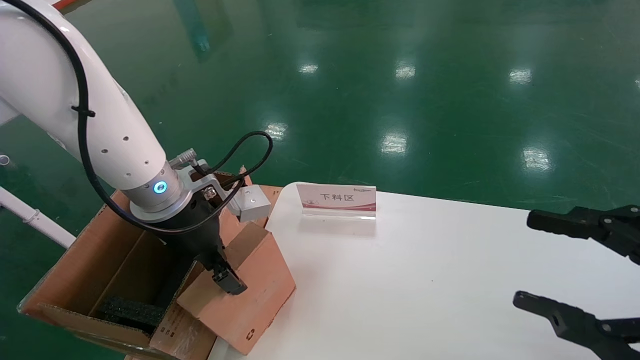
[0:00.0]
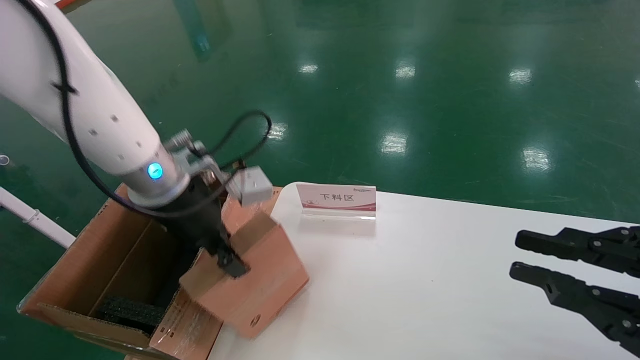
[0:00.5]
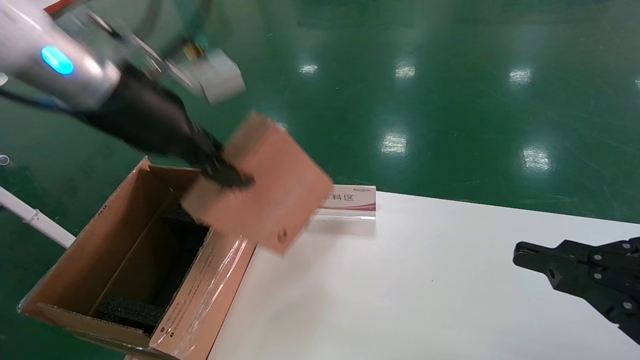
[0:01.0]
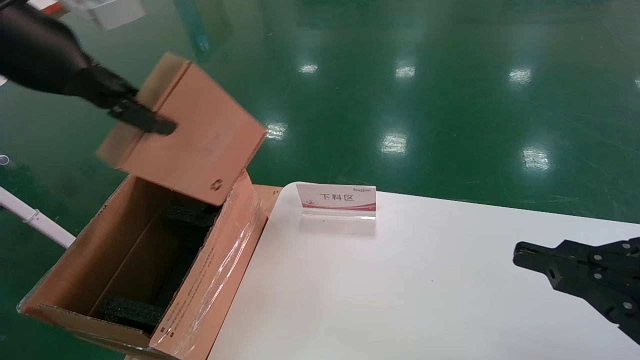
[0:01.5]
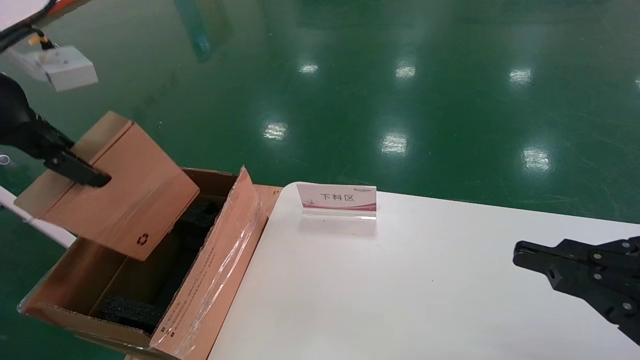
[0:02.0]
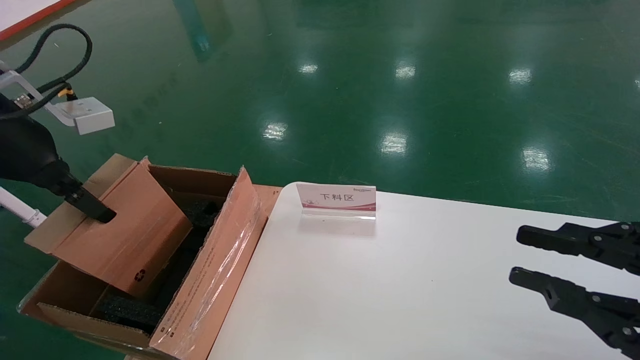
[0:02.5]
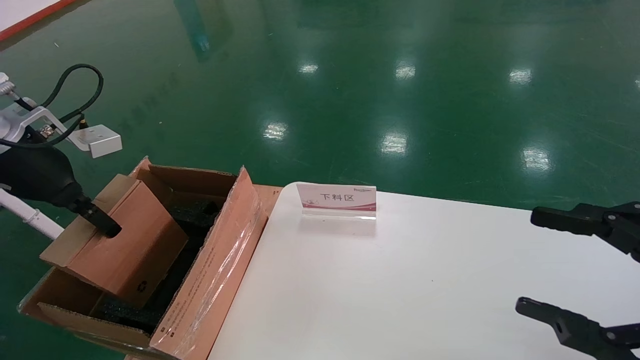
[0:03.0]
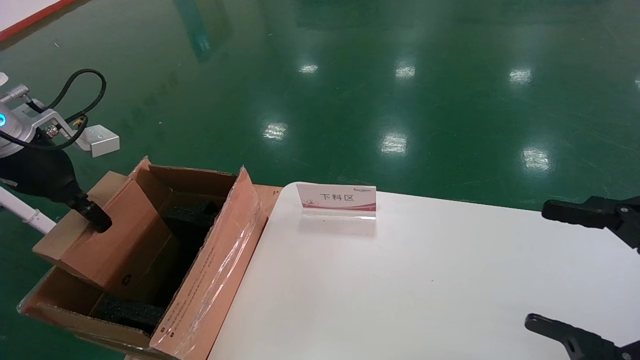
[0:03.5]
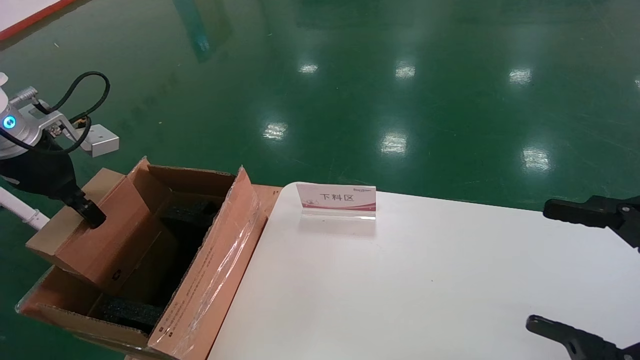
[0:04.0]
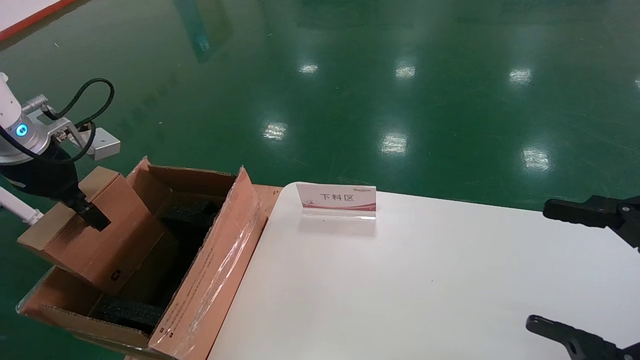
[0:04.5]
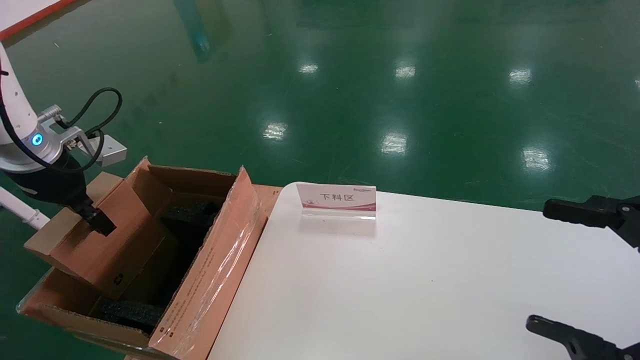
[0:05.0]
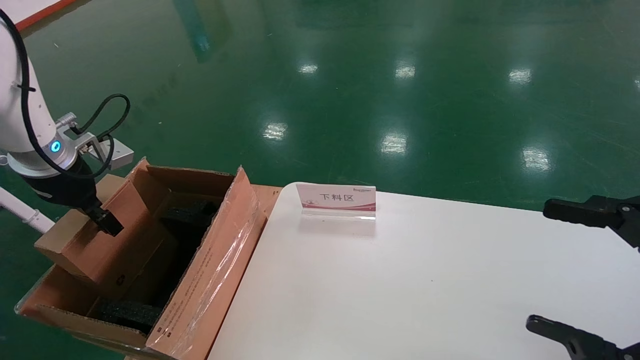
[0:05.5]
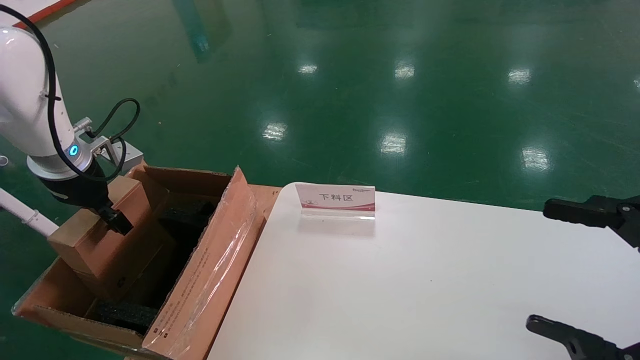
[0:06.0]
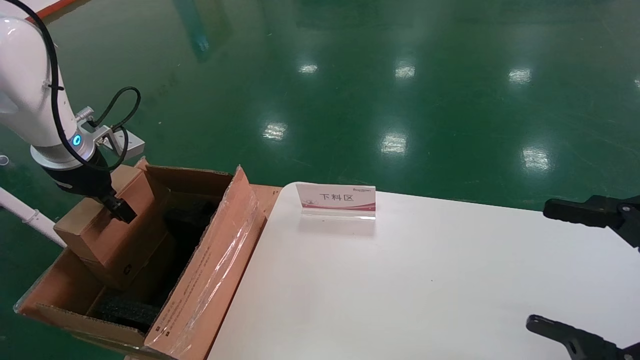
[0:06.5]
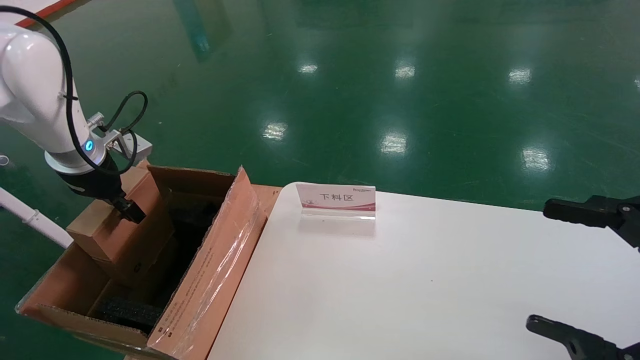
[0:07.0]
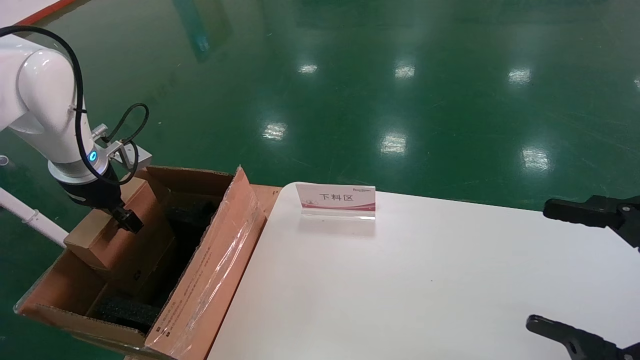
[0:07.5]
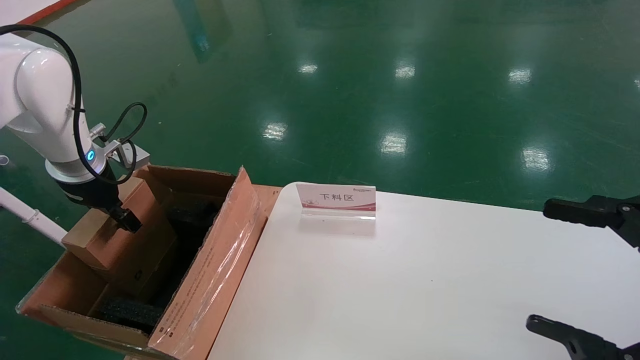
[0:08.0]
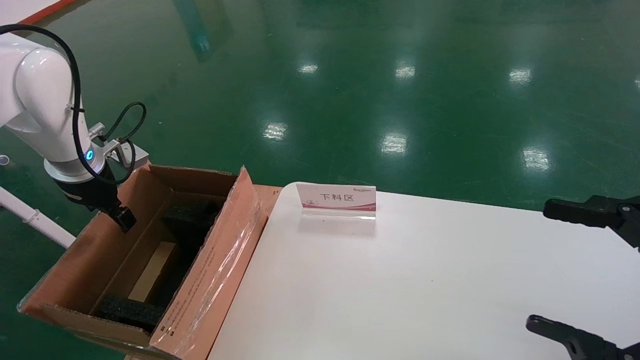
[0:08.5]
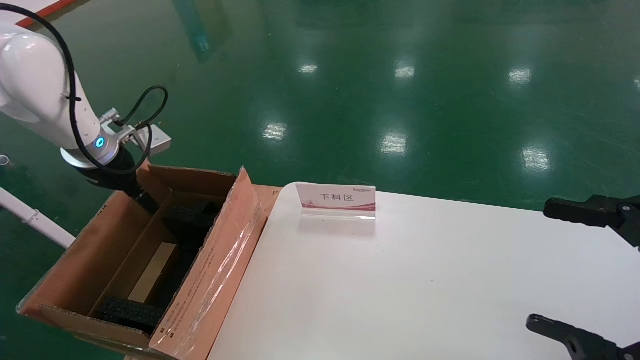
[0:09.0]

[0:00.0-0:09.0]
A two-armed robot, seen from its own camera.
Task of the whole recording: pick up the small cardboard box and load it into the large cardboard box.
0:00.0 to 0:02.0: The left gripper is displaced upward, to the left and backward by some 25 cm, and closes up; the right gripper closes.
0:02.0 to 0:04.5: The right gripper opens up; the left gripper travels downward, forward and to the left by about 15 cm.
0:04.5 to 0:07.0: The left gripper shifts some 5 cm forward.
0:07.0 to 0:09.0: The left gripper opens up.

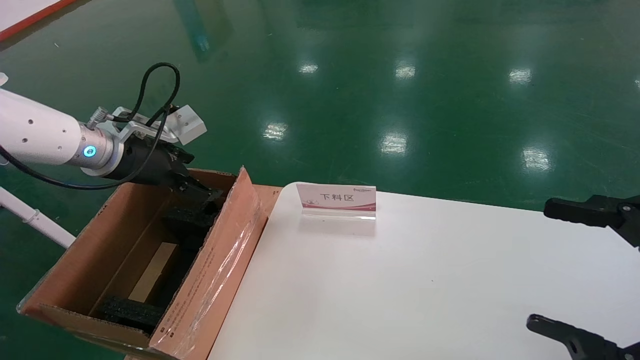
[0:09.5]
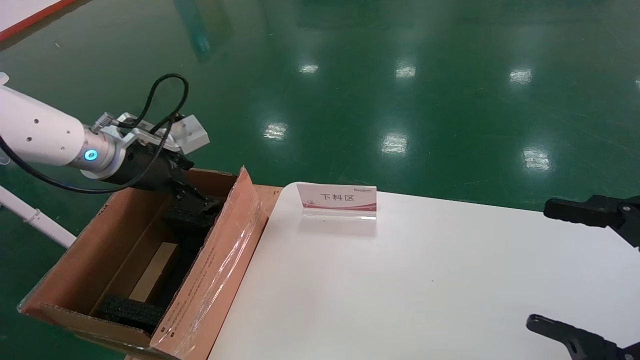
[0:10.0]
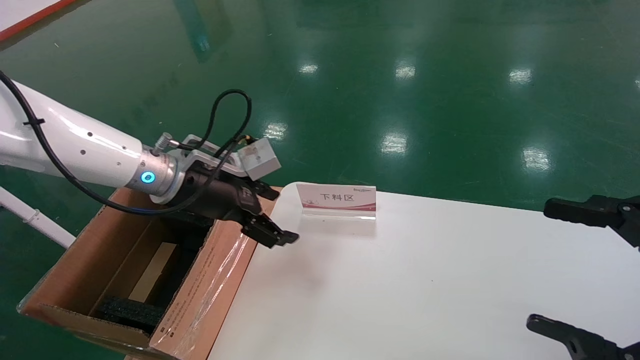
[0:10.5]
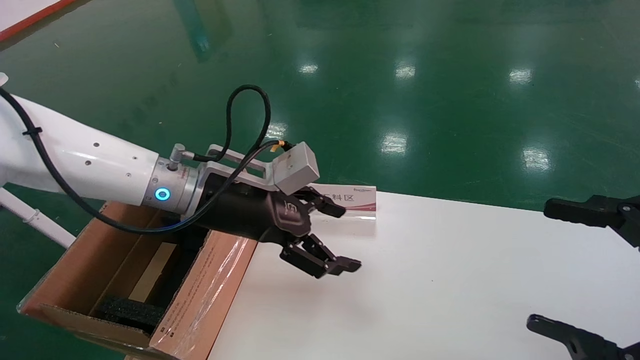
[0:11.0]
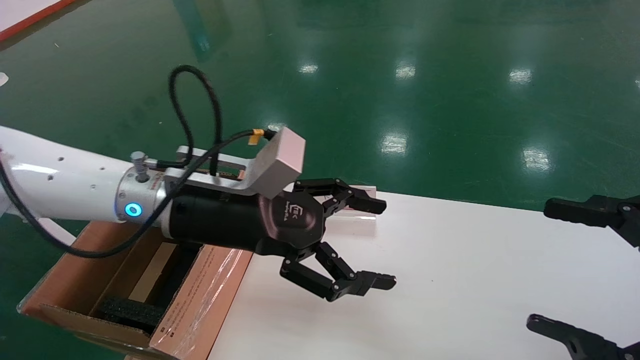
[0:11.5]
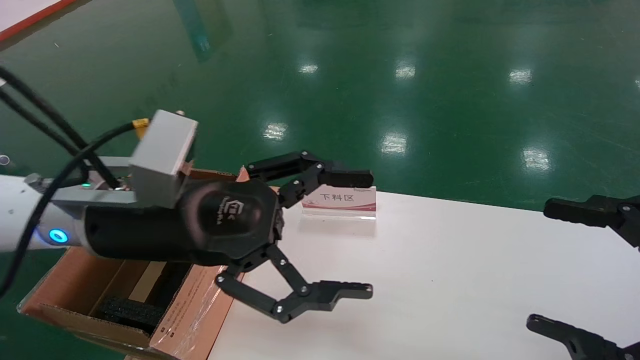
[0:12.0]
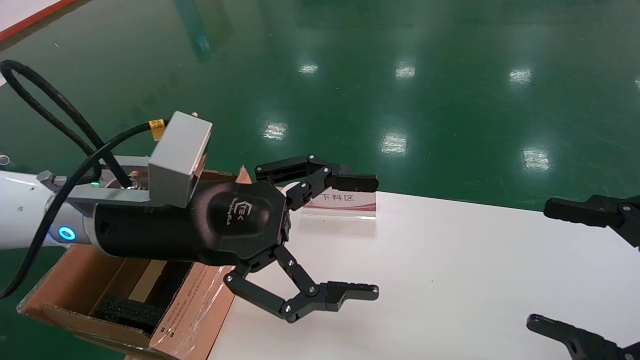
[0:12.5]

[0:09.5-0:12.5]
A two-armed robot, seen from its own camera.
Task of the whole recording: pick up the small cardboard box and load it into the large cardboard box.
0:09.5 to 0:11.0: The left gripper is displaced to the right by some 15 cm.
0:11.0 to 0:12.5: The left gripper is displaced backward by roughly 10 cm.

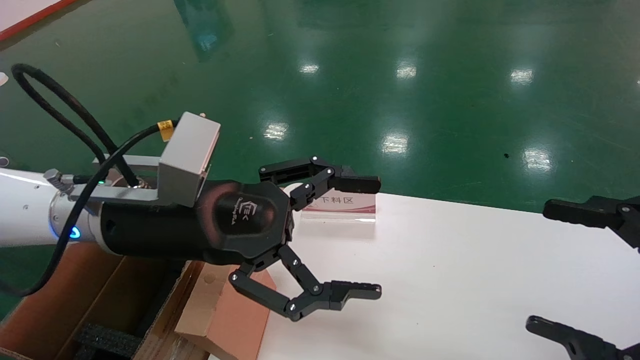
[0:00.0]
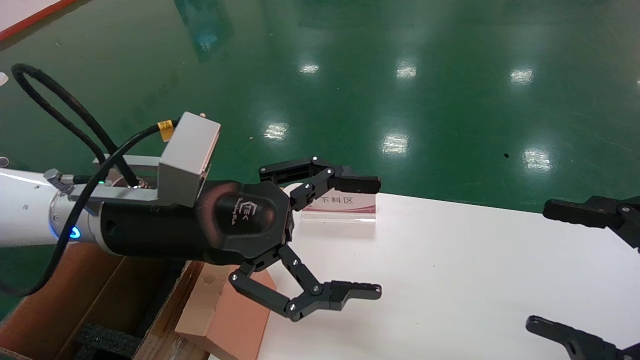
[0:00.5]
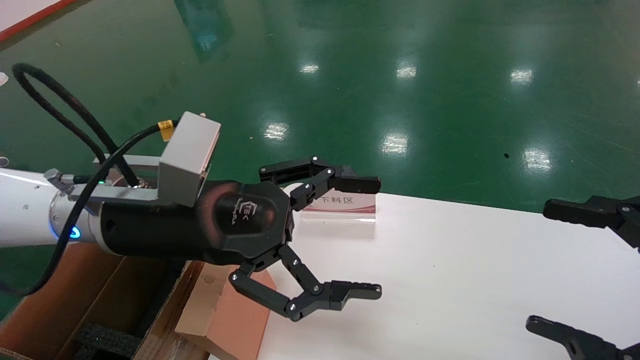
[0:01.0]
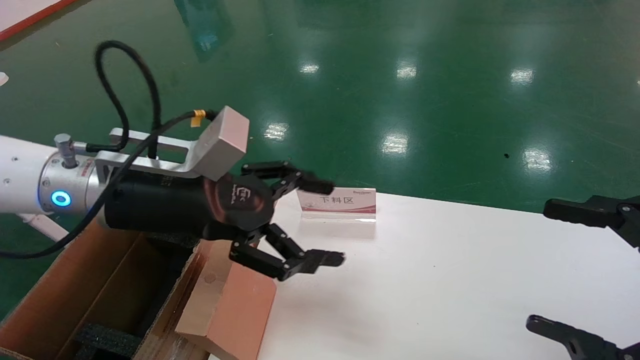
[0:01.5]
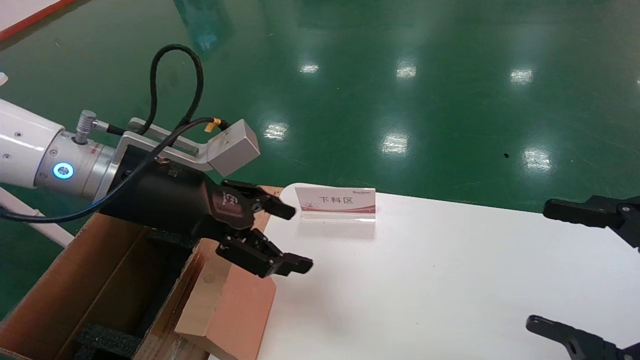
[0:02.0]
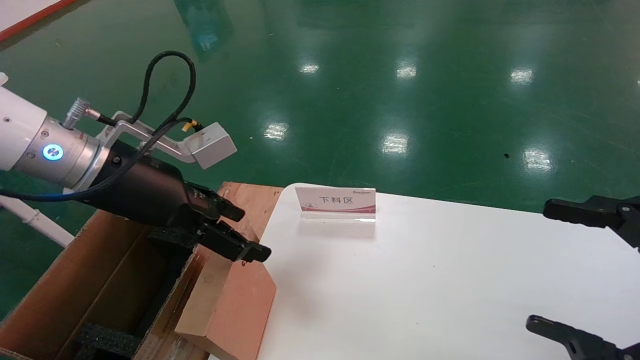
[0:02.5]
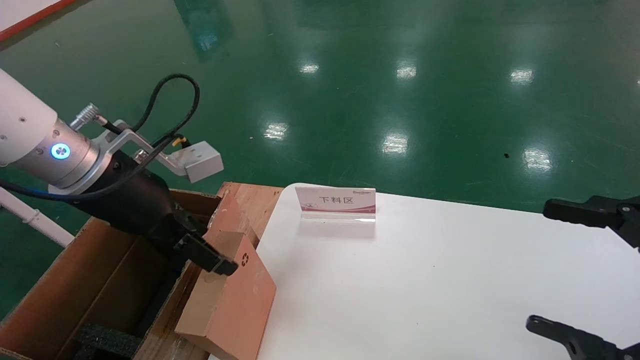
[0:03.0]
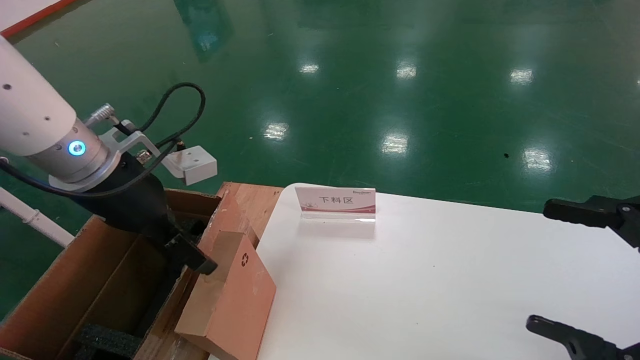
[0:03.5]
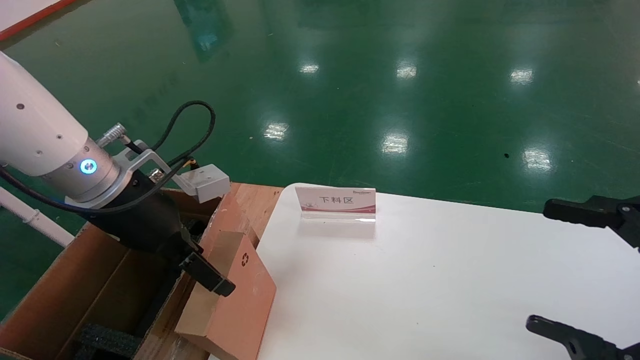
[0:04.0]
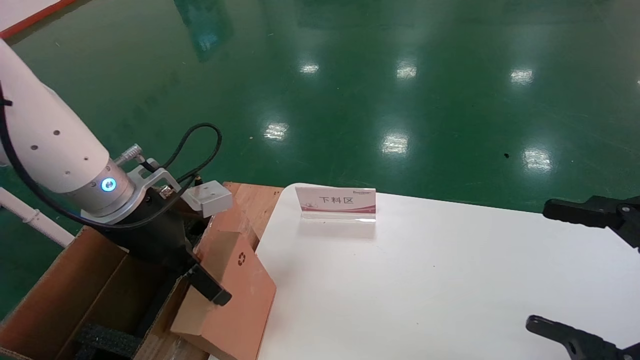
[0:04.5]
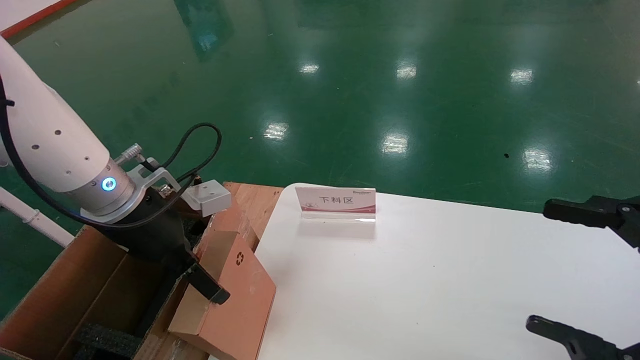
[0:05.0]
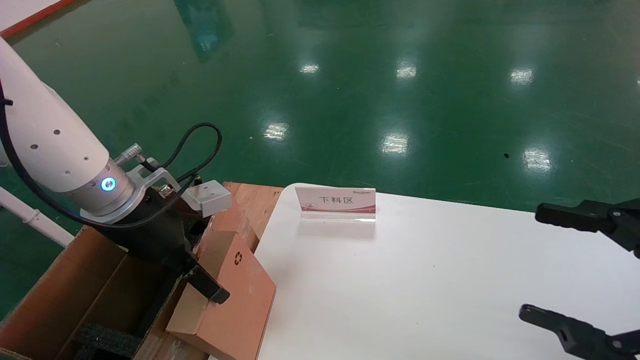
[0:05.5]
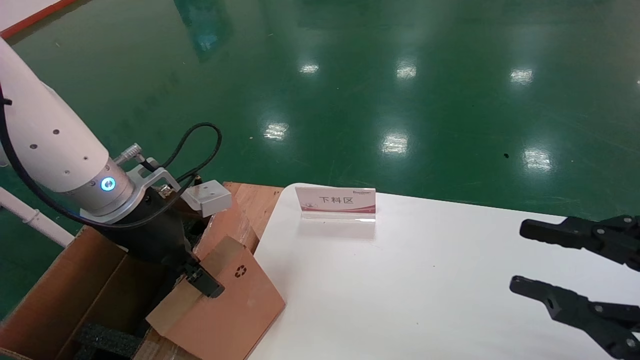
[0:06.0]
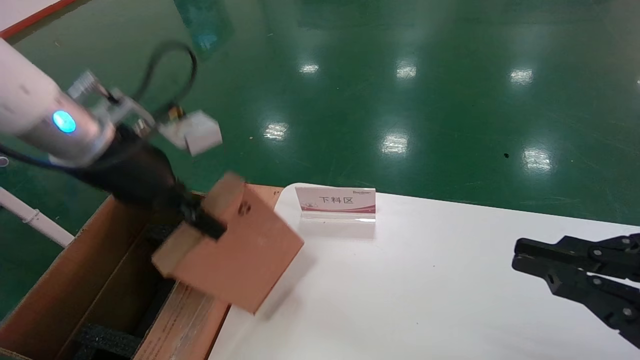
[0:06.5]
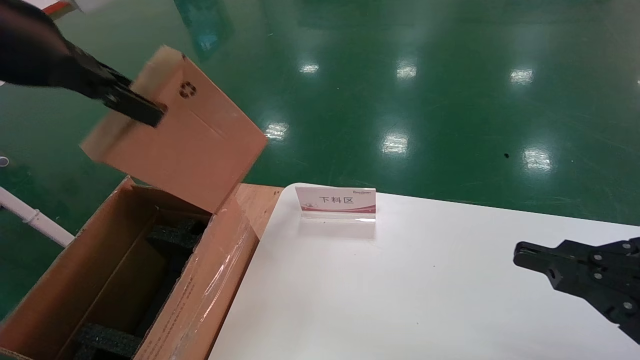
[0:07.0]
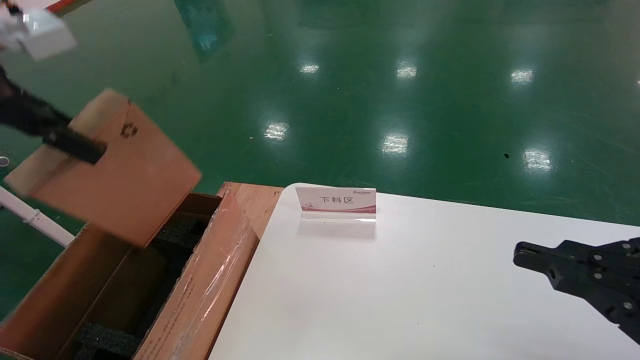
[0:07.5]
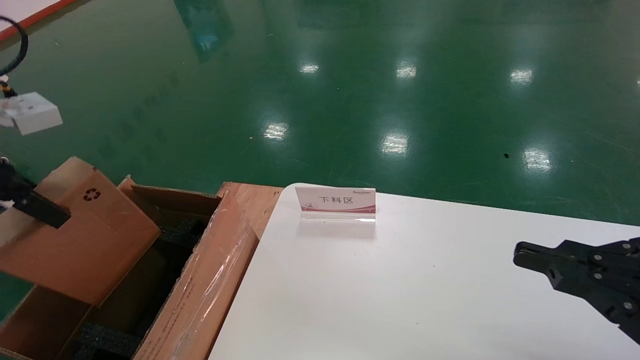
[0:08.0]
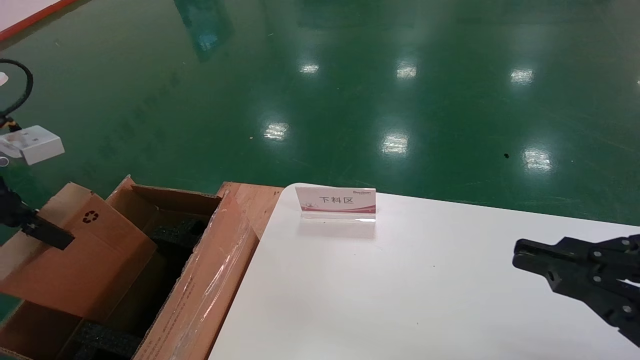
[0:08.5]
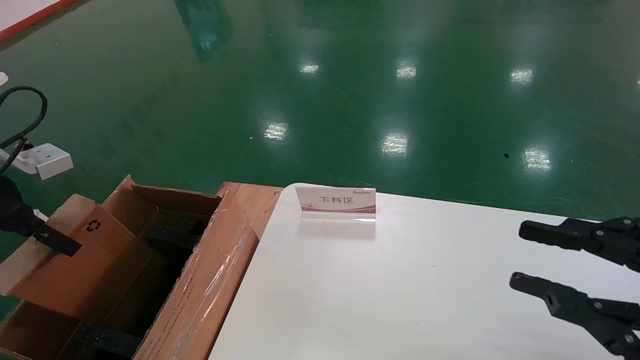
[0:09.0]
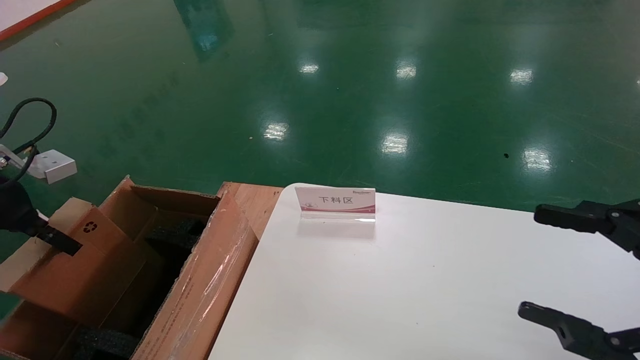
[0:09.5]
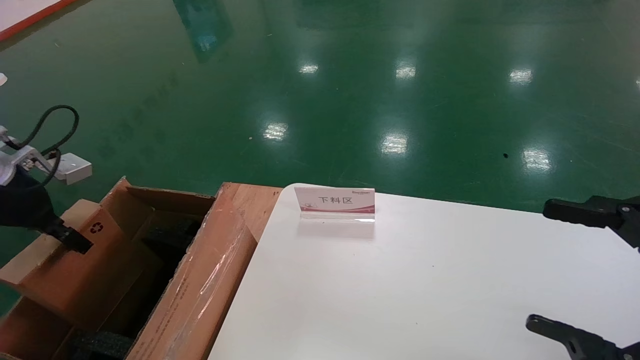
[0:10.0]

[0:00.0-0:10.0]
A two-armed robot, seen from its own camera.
Task of the whole recording: pick up the small cardboard box and load it into the large cardboard box.
Step, 0:01.5 to 0:06.5: Pick up the mouse and power cord box.
0:00.0 to 0:02.0: The left gripper moves approximately 5 cm.
0:04.0 to 0:06.0: The left gripper closes up. Meanwhile the right gripper closes up.
0:06.0 to 0:08.0: The left gripper shifts some 20 cm to the left, upward and backward, and closes its fingers; the right gripper closes up.
0:08.0 to 0:10.0: The right gripper opens up, while the left gripper is displaced downward, forward and to the left by some 15 cm.
